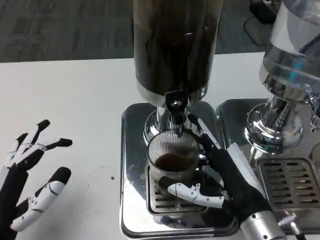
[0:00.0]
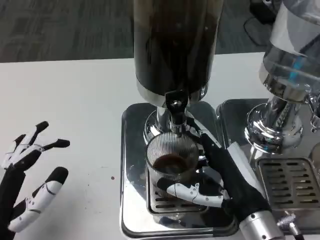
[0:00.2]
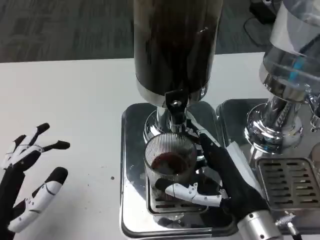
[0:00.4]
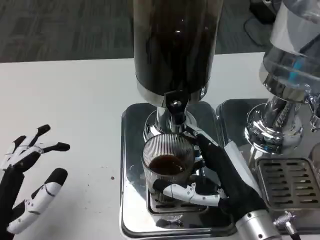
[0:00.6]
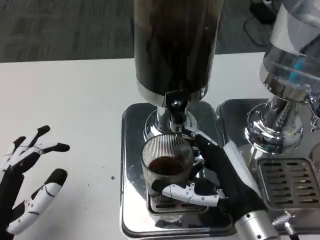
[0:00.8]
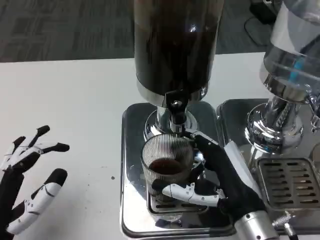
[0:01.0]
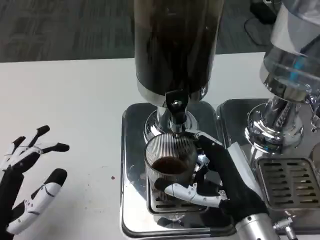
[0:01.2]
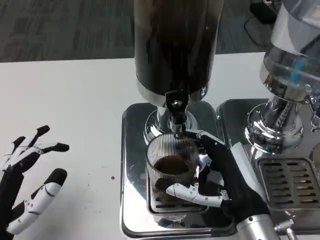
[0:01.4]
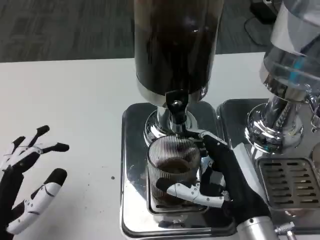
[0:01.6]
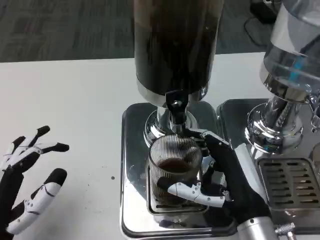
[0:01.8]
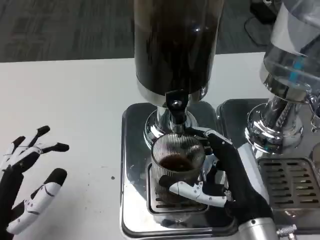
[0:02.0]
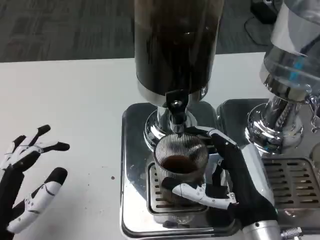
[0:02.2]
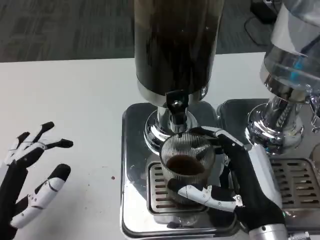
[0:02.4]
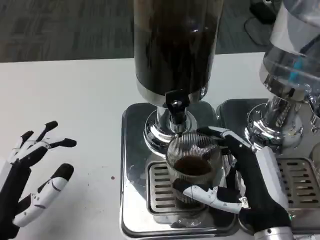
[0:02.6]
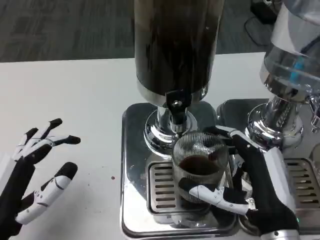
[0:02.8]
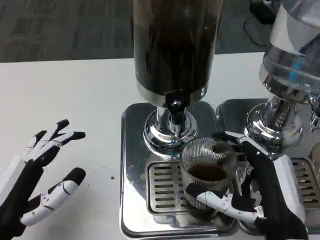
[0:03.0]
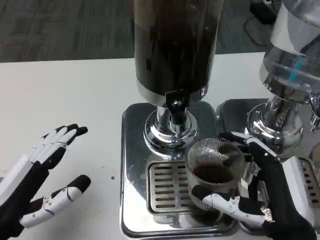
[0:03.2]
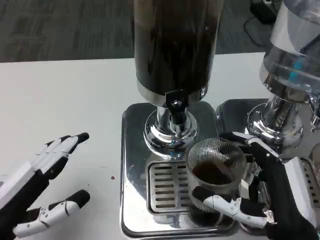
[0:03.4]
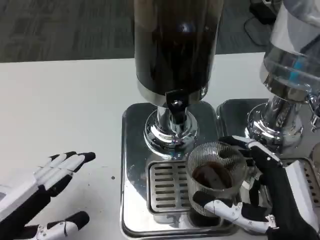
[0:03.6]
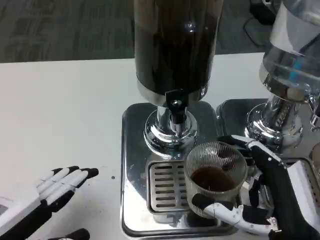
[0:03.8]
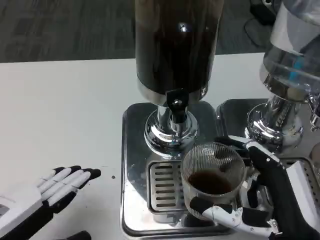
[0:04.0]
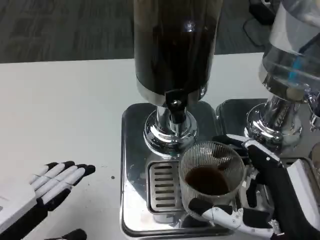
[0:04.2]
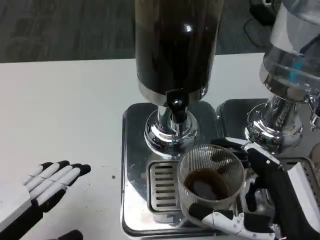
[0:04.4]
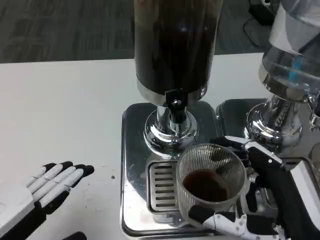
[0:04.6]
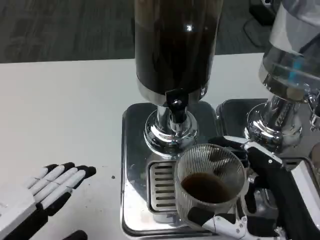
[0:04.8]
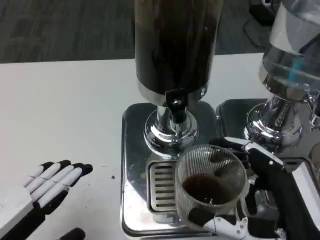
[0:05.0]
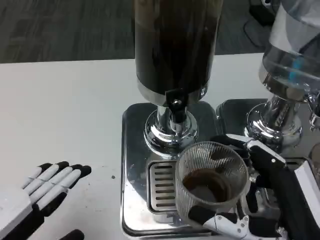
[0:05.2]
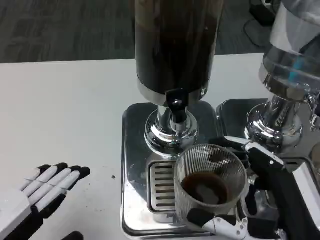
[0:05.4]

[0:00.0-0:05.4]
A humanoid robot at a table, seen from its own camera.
Task of the whole recording: Grasp the cup under the faucet to collect the drink, then remove the cup.
0:00.0 to 0:02.8: There are only small adjustments of the hands.
0:02.8 to 0:04.0: The left hand changes place by approximately 5 cm.
0:04.0 to 0:05.4: The hands move only a little.

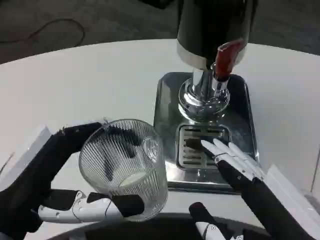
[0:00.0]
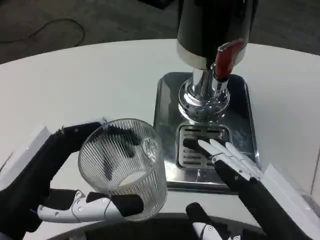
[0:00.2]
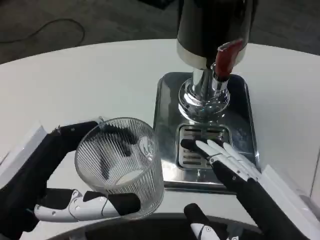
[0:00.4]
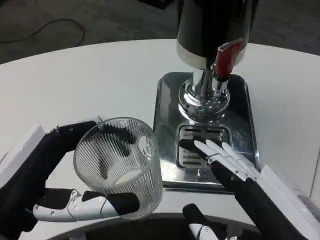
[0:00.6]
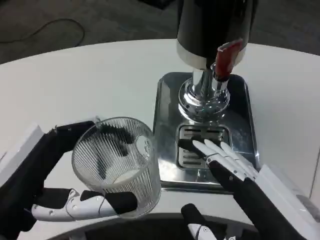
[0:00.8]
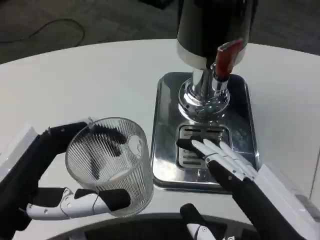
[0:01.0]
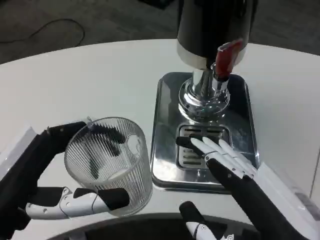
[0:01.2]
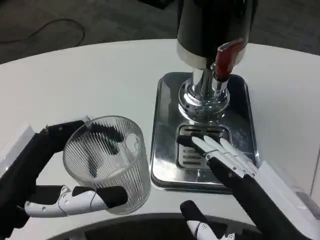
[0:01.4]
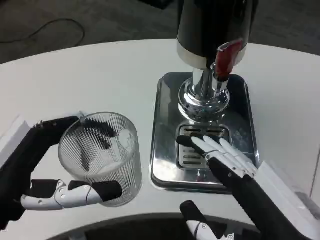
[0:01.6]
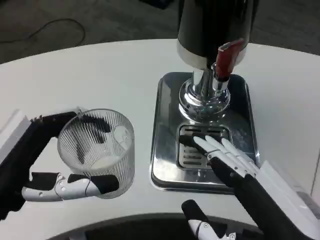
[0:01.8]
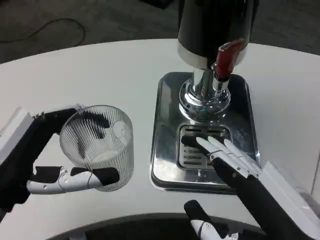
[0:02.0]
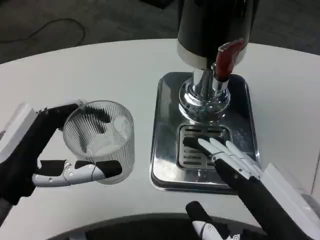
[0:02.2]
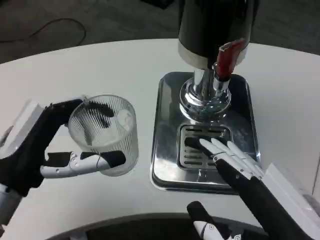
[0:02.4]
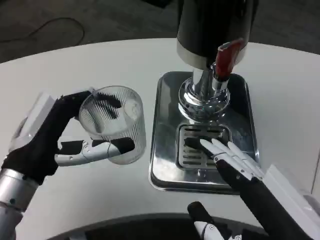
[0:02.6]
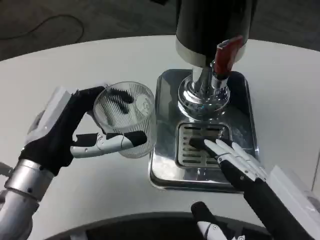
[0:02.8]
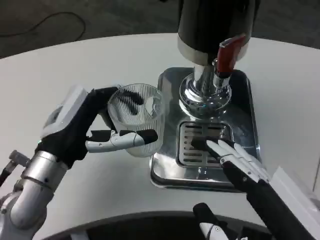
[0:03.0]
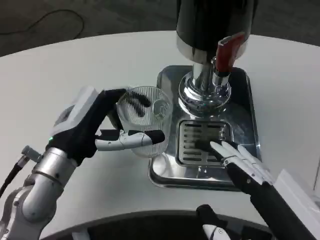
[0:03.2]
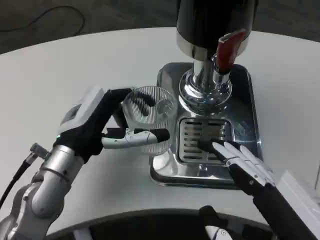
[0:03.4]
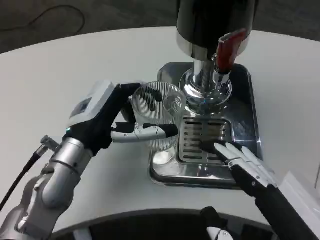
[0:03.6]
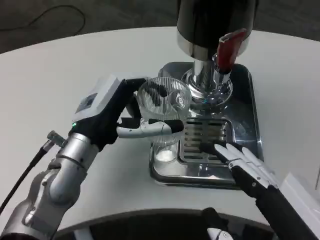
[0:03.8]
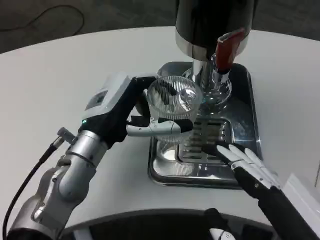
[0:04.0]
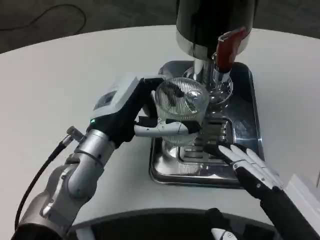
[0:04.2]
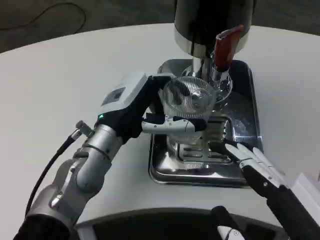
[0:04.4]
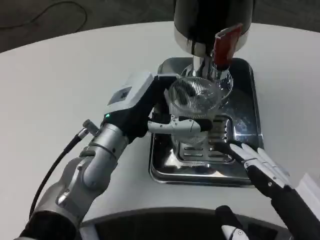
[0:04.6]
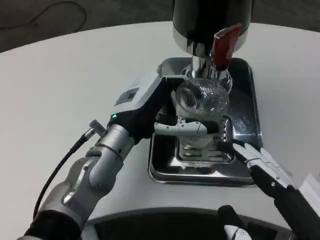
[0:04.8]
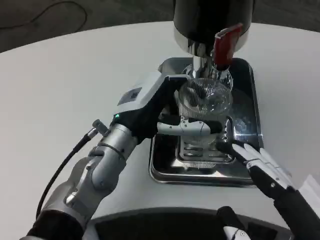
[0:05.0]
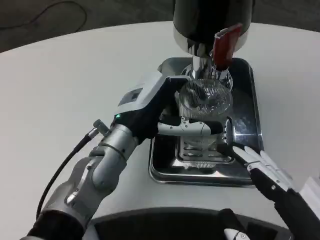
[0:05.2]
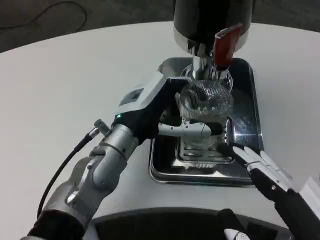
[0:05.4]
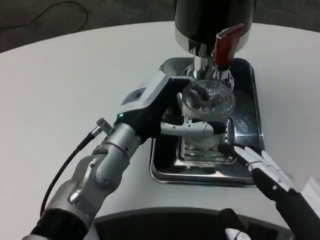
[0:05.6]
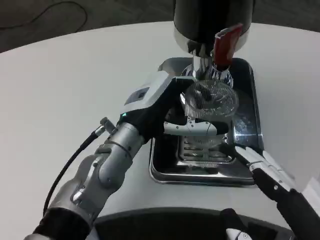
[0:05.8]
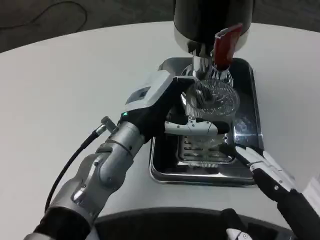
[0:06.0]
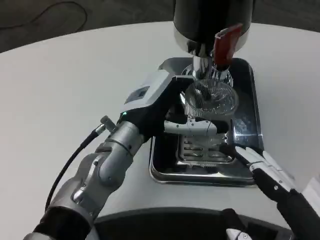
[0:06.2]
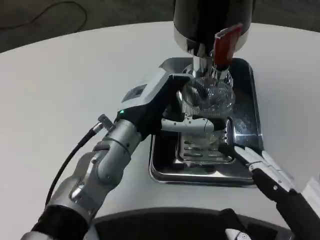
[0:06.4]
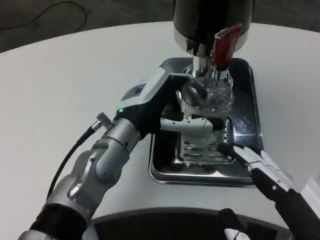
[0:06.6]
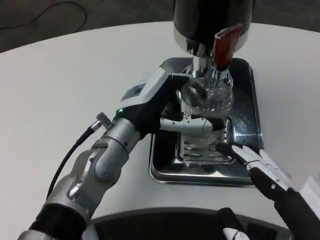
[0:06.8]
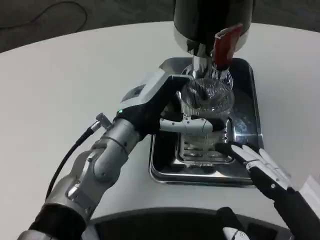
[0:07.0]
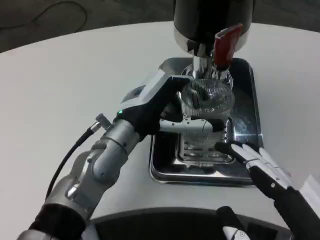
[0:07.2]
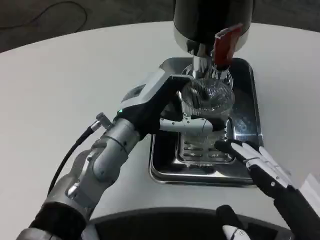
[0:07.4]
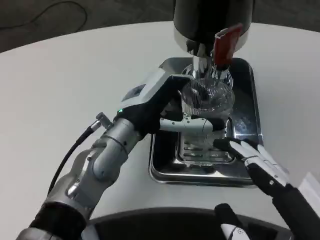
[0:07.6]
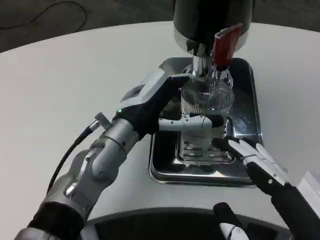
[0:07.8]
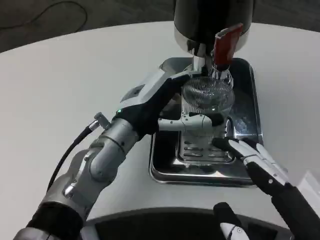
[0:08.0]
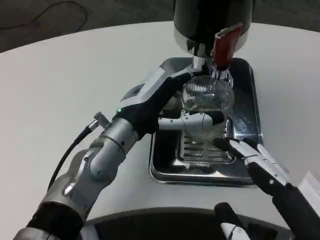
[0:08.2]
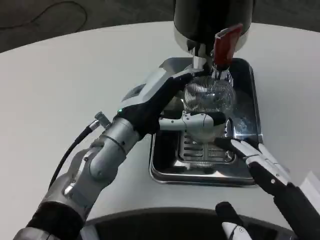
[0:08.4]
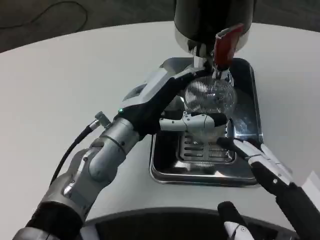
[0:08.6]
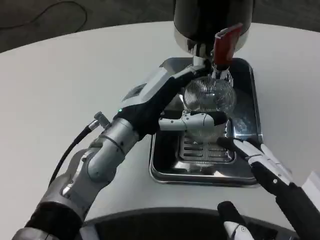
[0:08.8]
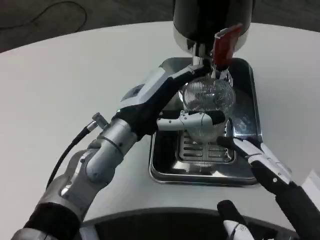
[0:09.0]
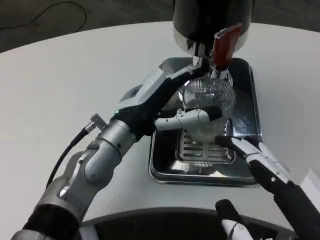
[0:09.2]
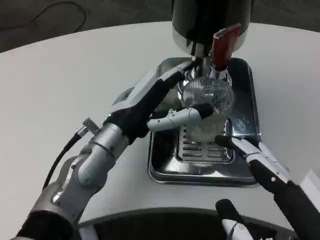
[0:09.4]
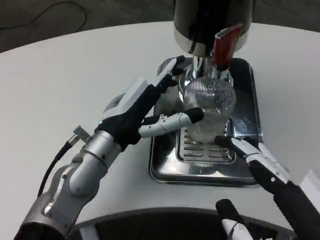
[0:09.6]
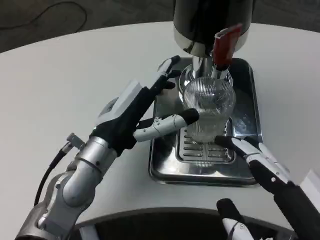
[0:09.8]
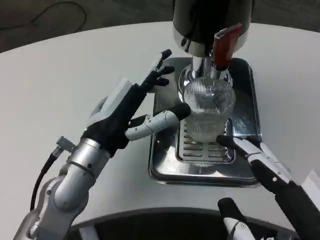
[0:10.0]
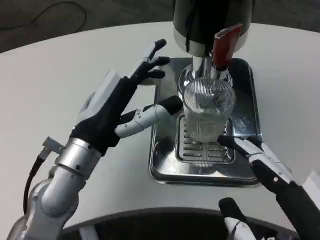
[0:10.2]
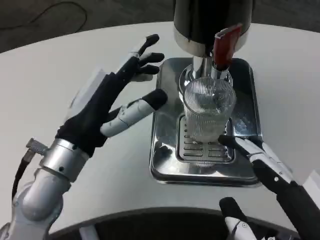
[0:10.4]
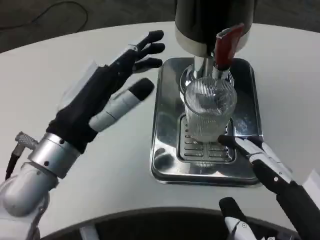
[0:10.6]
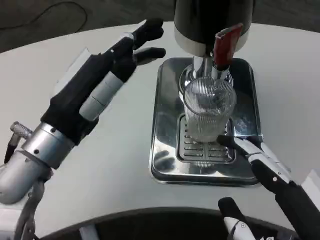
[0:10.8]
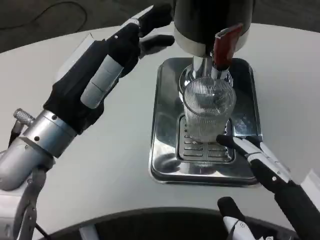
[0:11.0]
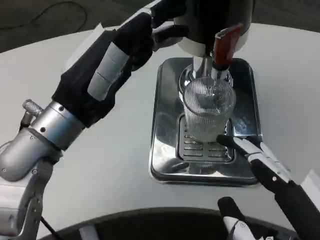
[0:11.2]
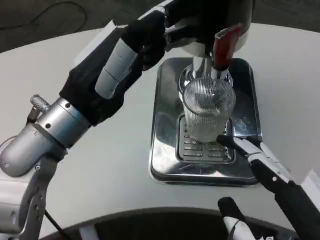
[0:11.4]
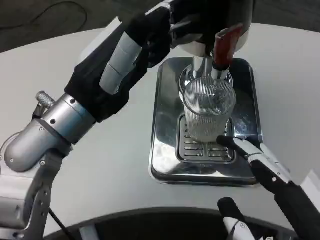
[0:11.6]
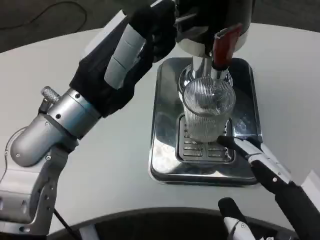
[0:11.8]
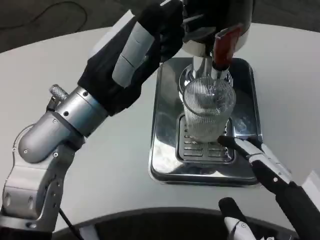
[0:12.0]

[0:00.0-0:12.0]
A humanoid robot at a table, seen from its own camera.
Task of the whole recording: Grasp the cup under the faucet to collect the drink, then remove the cup.
0:01.6 to 0:03.0: The left hand moves forward, roughly 10 cm.
0:03.0 to 0:04.4: The left hand heads to the right and forward, covering some 10 cm.
0:06.0 to 0:07.6: Neither hand changes place.
0:07.6 to 0:09.0: The two hands keep their place.
0:09.0 to 0:10.4: The left hand moves backward and to the left, approximately 10 cm.
0:10.4 to 0:12.0: The left hand shifts approximately 5 cm upward.

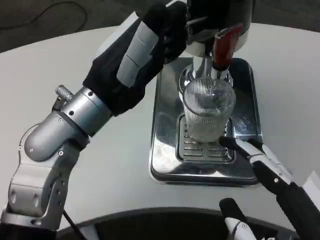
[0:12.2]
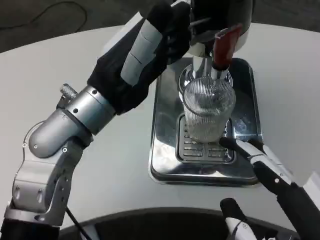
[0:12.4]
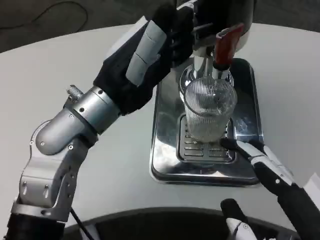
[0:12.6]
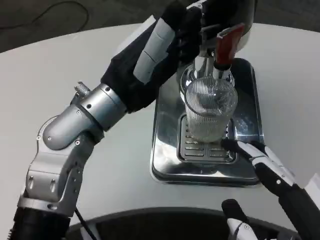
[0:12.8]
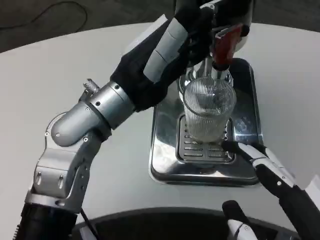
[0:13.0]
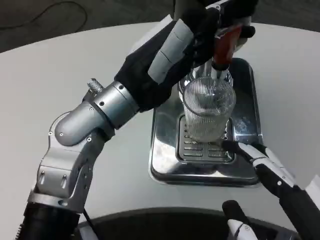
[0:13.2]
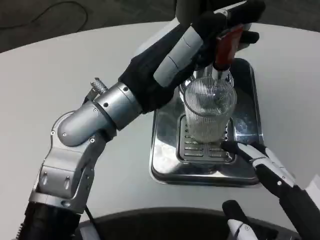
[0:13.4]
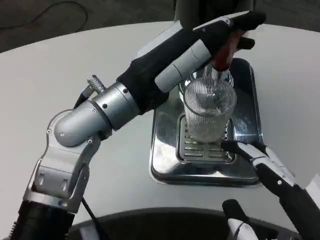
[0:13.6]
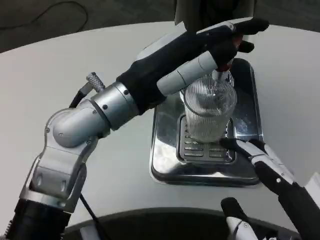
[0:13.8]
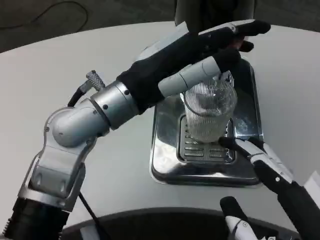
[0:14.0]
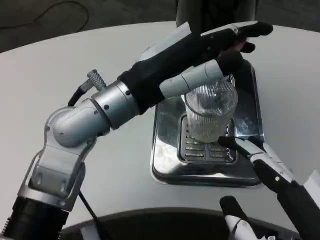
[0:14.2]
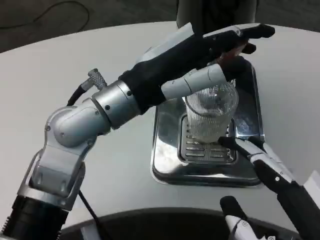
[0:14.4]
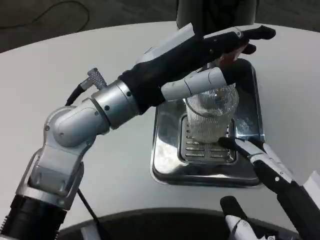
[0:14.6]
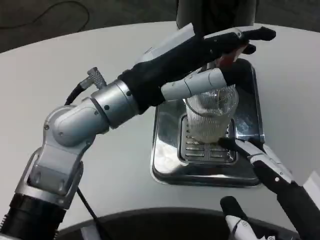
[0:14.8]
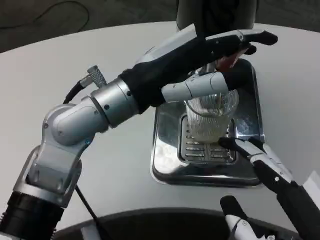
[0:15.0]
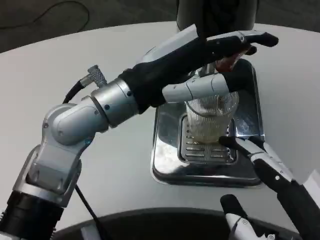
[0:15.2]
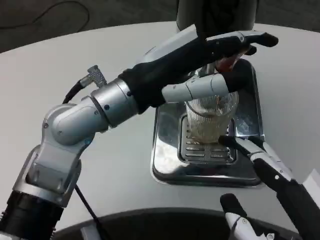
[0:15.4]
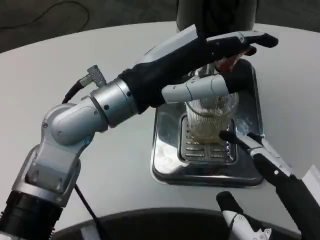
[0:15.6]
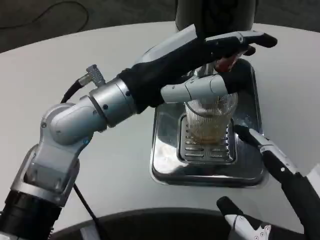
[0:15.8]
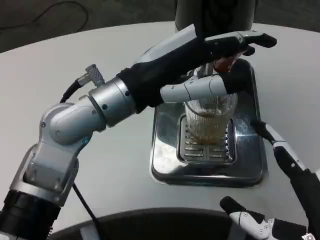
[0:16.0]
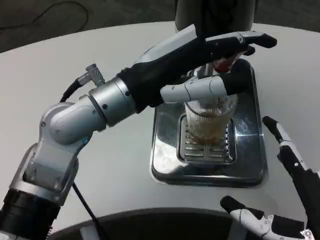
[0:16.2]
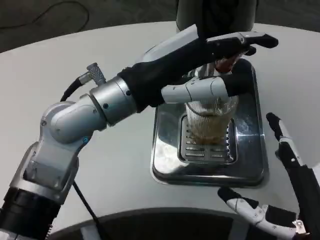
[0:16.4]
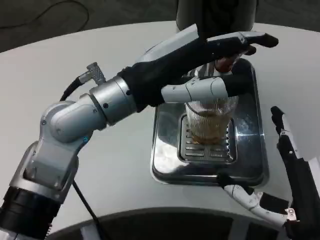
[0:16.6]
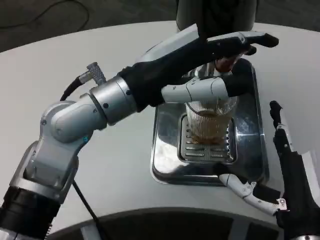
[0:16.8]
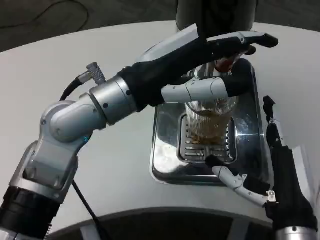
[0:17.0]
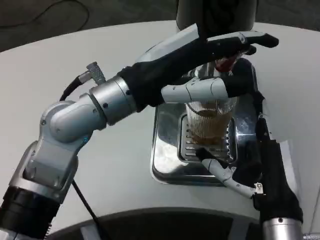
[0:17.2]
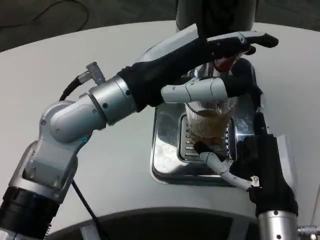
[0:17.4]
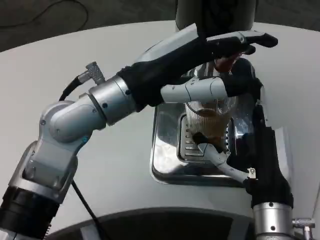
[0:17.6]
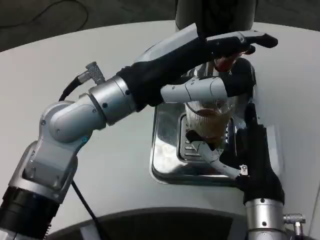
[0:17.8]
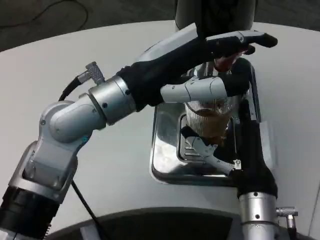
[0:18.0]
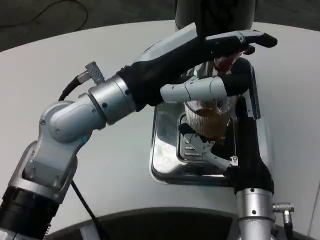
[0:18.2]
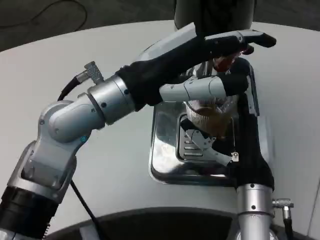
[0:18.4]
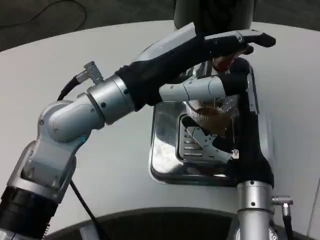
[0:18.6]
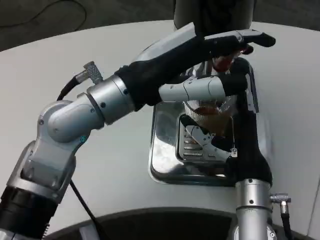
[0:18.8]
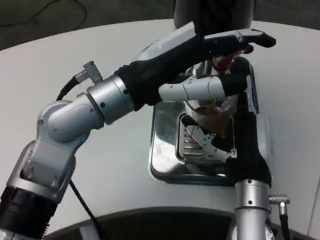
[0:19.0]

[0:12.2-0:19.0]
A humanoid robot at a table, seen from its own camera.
Task of the whole recording: Grasp the cup under the faucet to collect the drink, then remove the cup.
0:15.0 to 0:16.2: The right hand shifts by some 5 cm.
0:16.2 to 0:17.6: The right hand goes roughly 15 cm forward and to the left.
